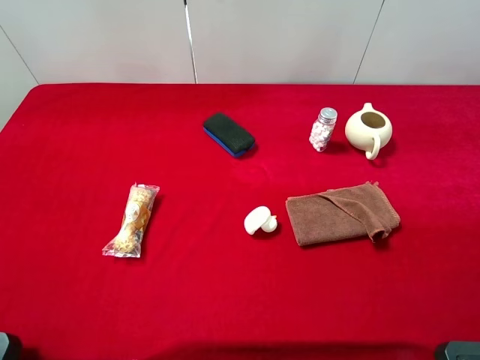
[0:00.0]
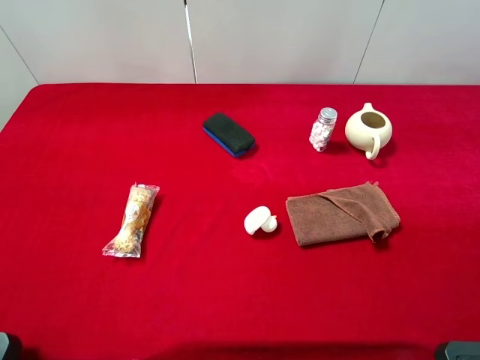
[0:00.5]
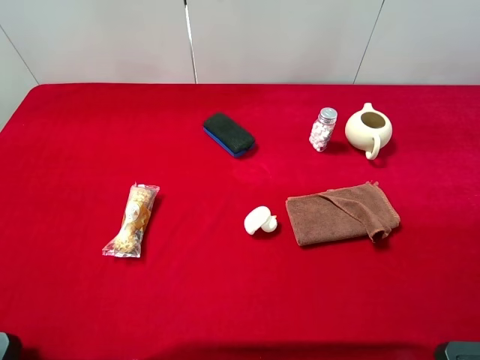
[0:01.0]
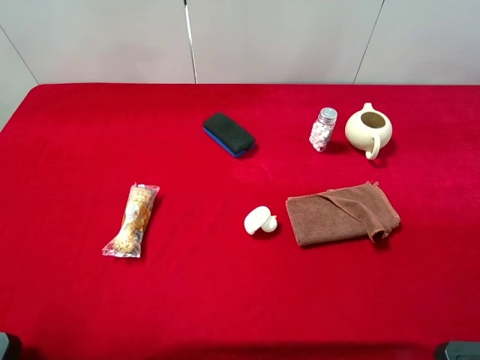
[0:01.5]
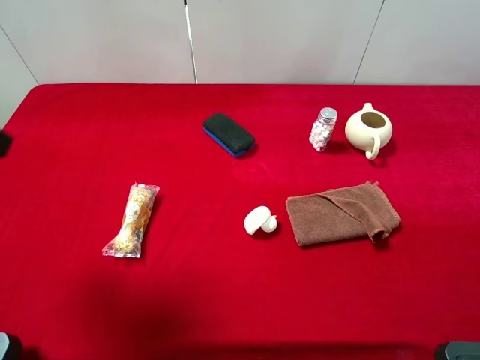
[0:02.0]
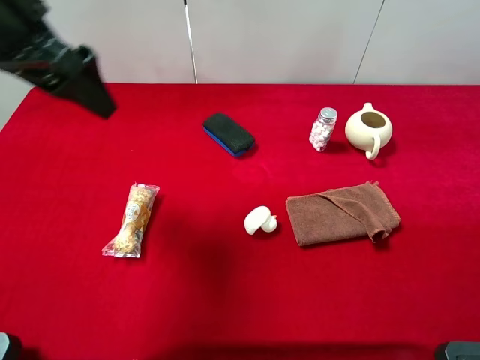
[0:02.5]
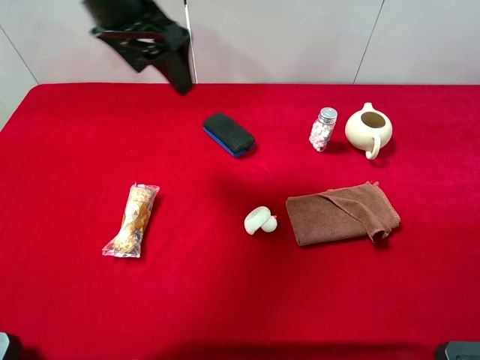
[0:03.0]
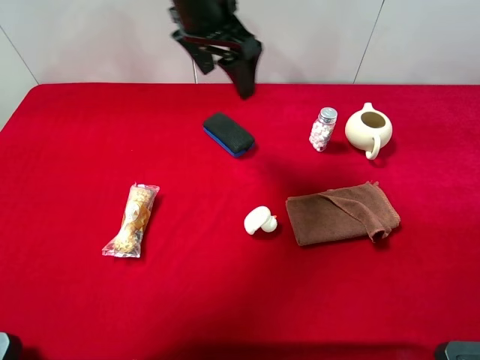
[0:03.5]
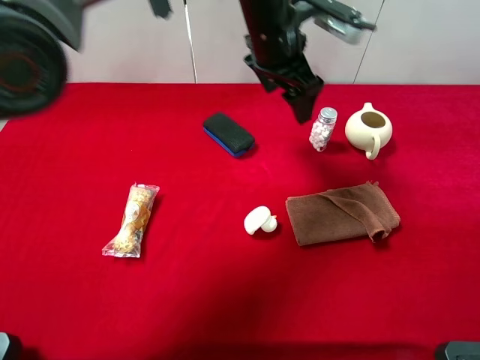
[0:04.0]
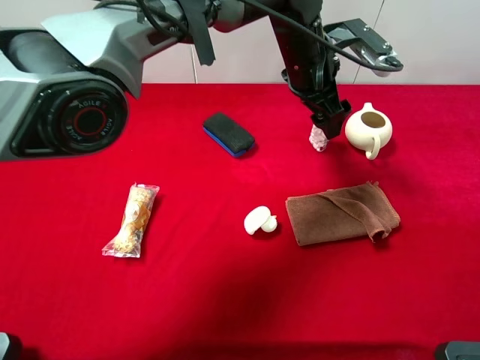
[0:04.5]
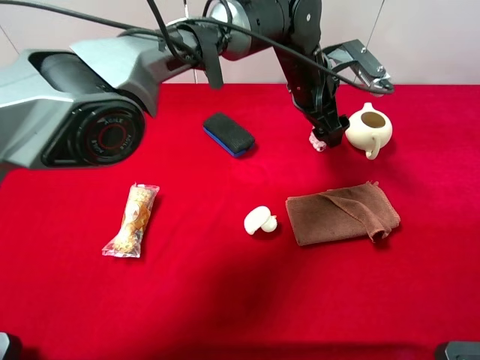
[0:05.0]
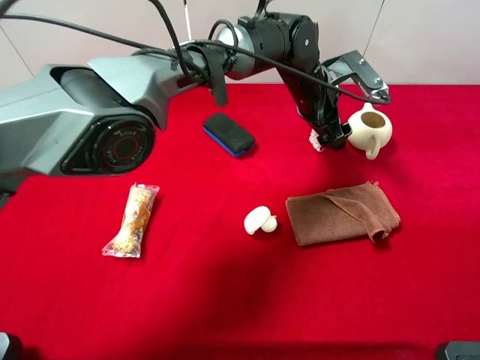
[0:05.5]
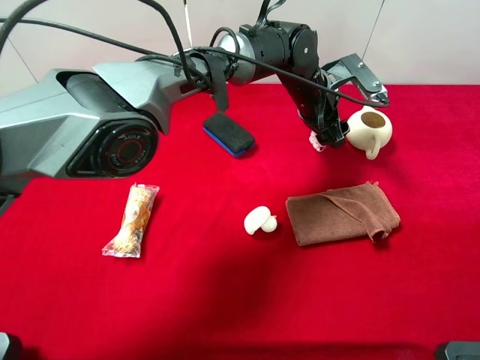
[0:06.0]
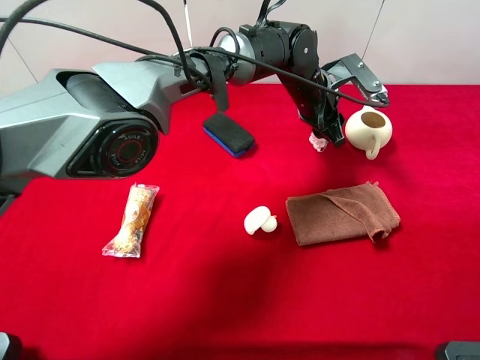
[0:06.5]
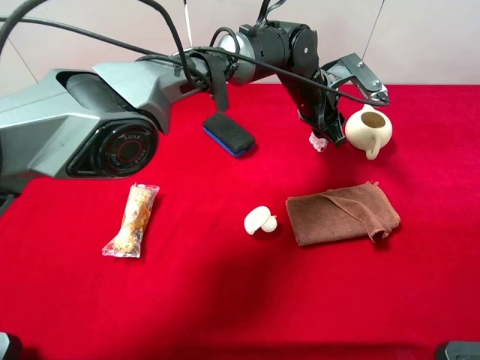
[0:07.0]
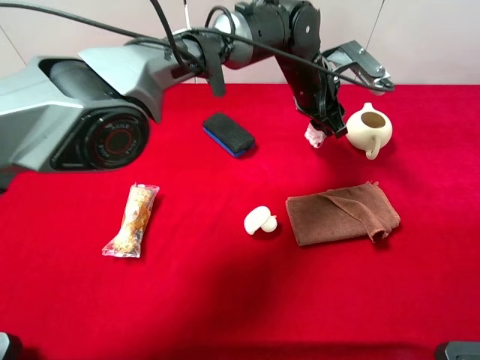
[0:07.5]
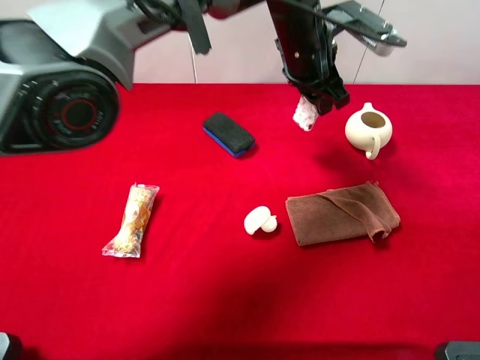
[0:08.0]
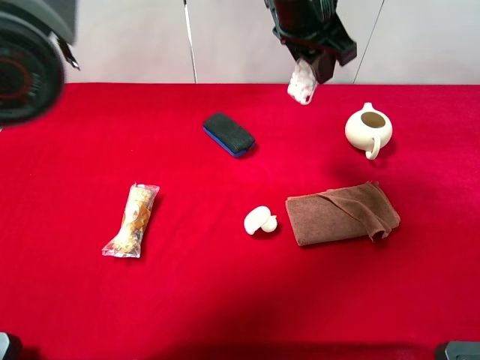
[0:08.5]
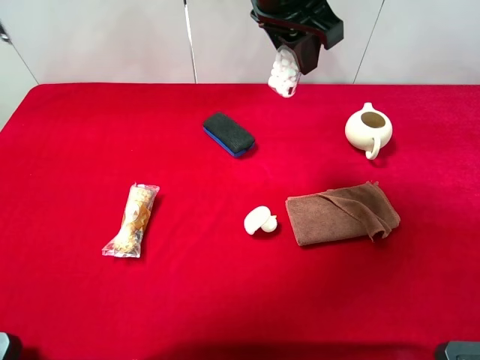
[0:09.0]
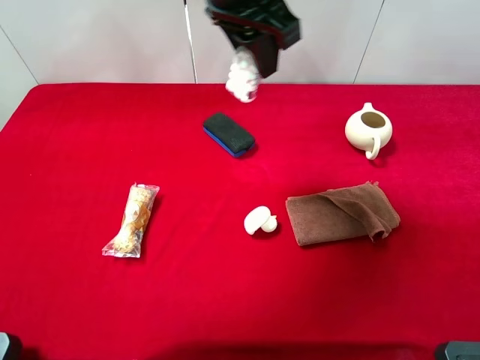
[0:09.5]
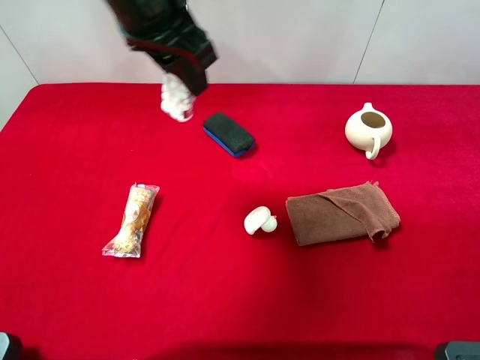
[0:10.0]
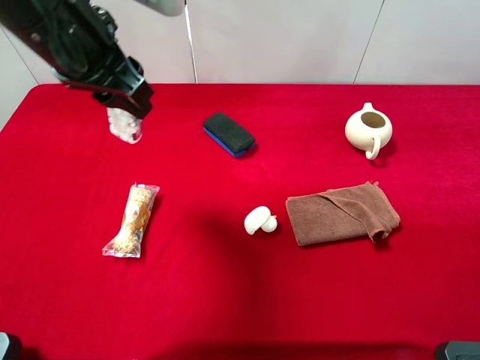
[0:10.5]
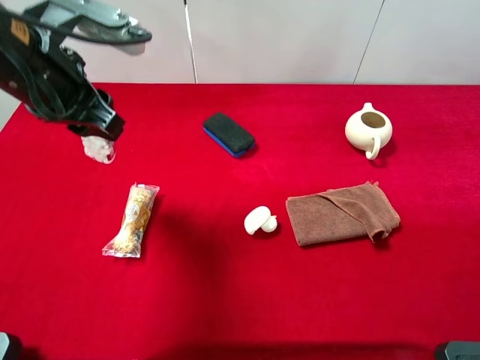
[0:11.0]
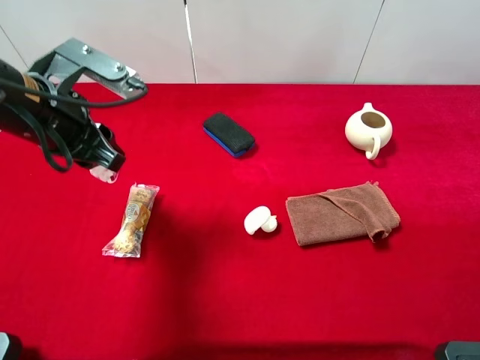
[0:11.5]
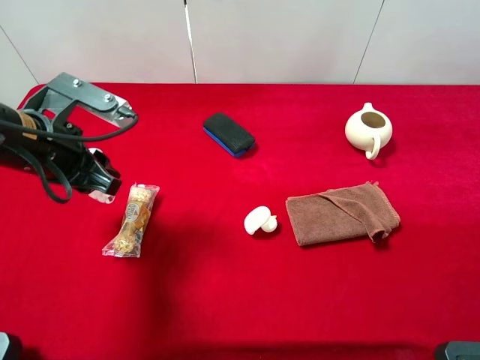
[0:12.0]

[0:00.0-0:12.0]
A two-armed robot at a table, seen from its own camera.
Task of the whole recording: the gripper move the object.
Step, 0.0 to 7.0 s: Grasp the mint candy with the left gripper.
2.0 to 4.0 s: The left gripper heads to the right and forward, covering about 40 cm.
4.0 to 6.0 s: The left gripper heads downward and to the right, covering about 15 cm.
6.0 to 8.0 s: The left gripper heads upward, covering some 5 cm, and closes its fingers.
8.0 to 10.0 s: The left gripper goes some 20 cm to the left, upward and backward.
10.0 to 12.0 s: The left gripper moves to the left, downward and backward, approximately 20 cm.

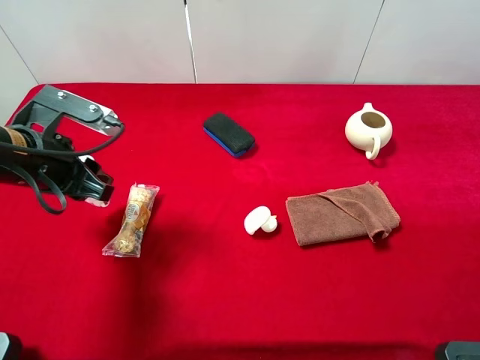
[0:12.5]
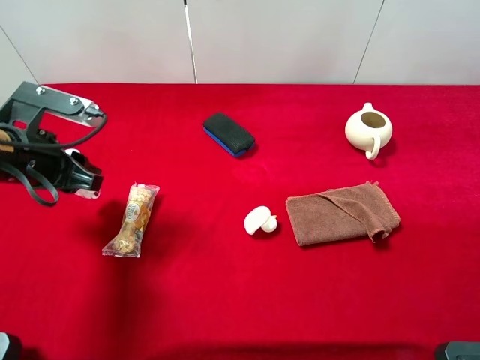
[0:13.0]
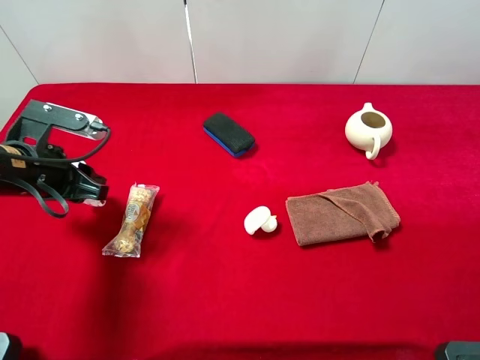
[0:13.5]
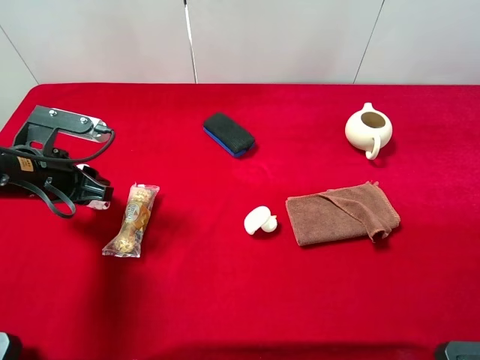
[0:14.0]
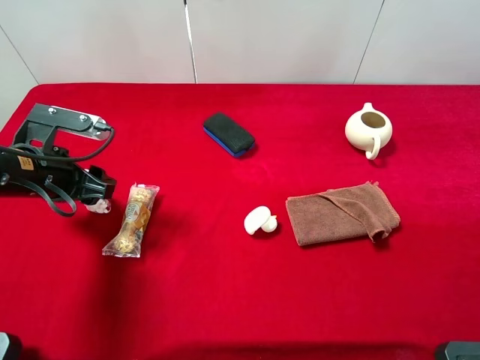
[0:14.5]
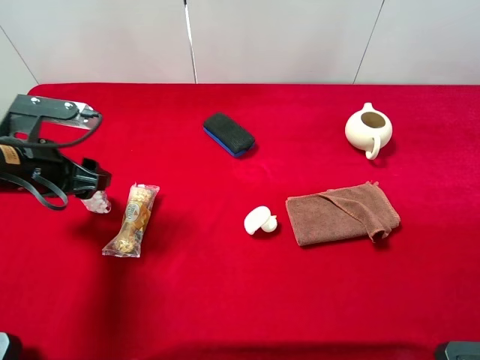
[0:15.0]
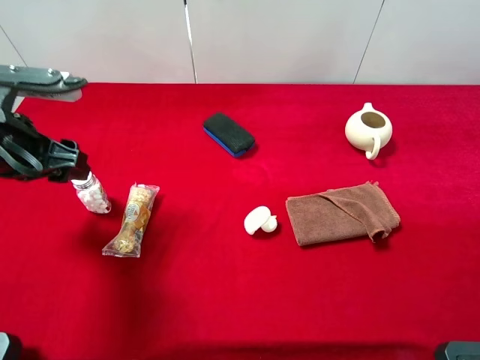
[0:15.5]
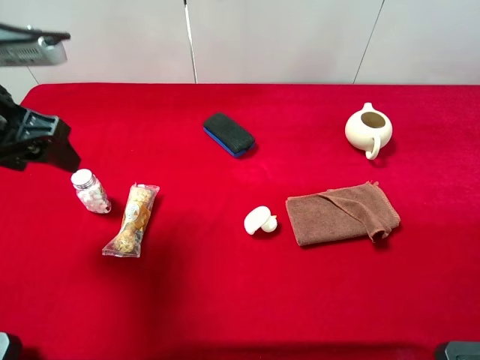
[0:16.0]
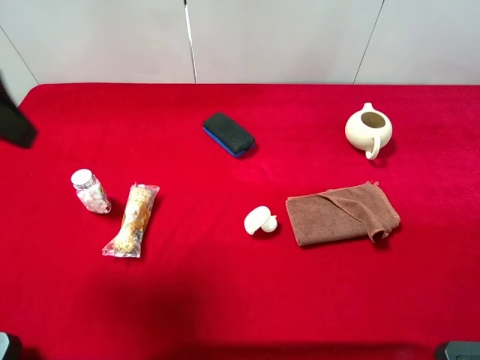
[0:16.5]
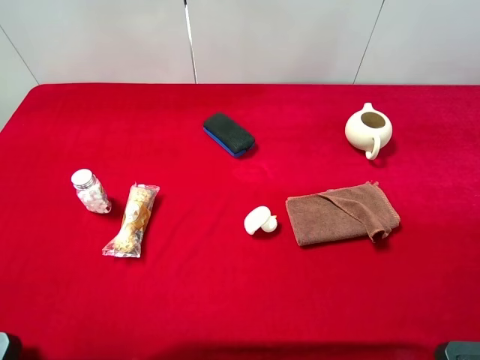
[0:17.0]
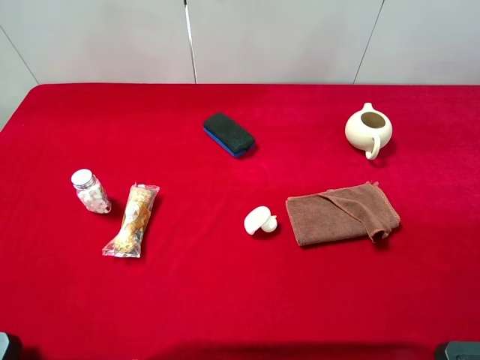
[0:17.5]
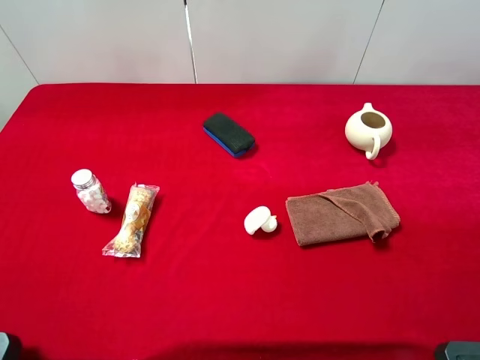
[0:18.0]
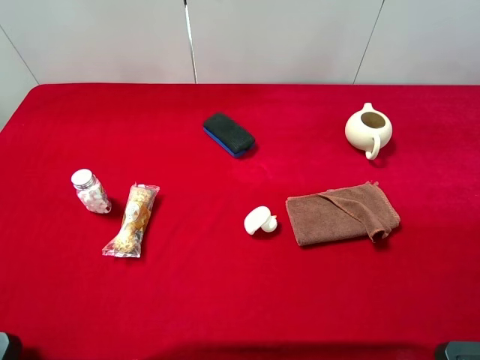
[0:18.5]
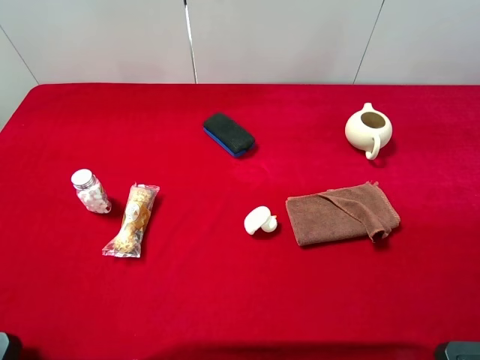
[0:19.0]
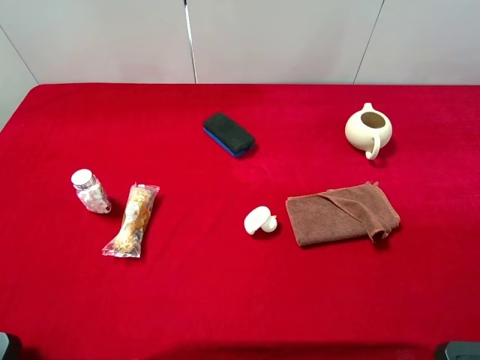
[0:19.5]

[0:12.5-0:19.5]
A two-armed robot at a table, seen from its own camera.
Task of the whole recording: the gripper move the object.
Step, 12.5 to 15.5 s: Place the mint candy on the table with the left gripper.
12.5 to 14.5 s: The left gripper moves about 5 cm, and opens.
14.5 to 16.0 s: The left gripper travels upward by roughly 10 cm.
16.0 to 17.5 s: The left gripper heads backward and upward, covering about 25 cm, and opens.

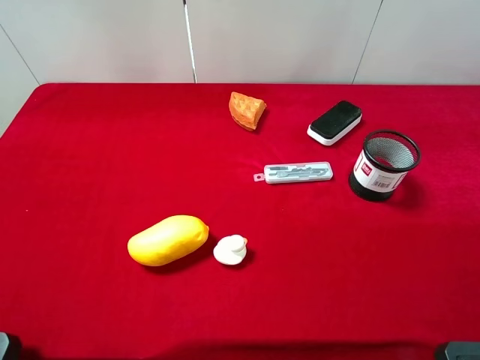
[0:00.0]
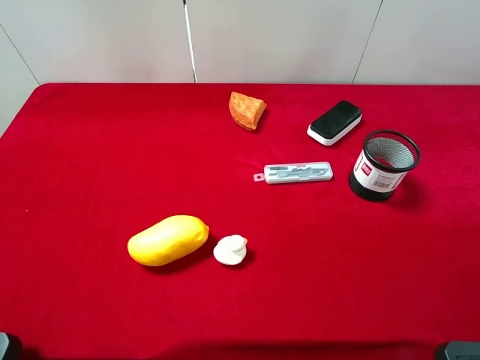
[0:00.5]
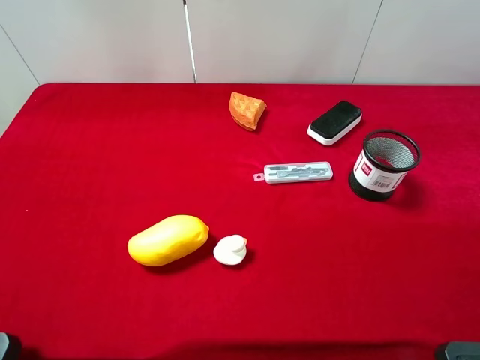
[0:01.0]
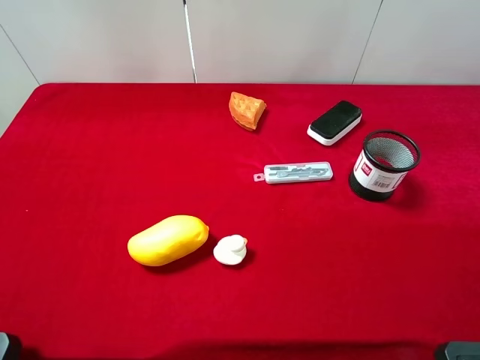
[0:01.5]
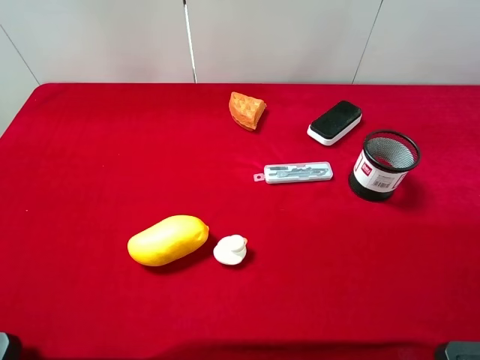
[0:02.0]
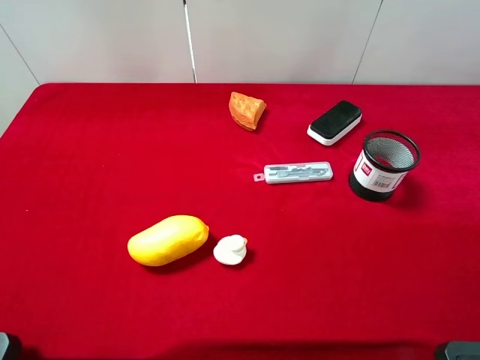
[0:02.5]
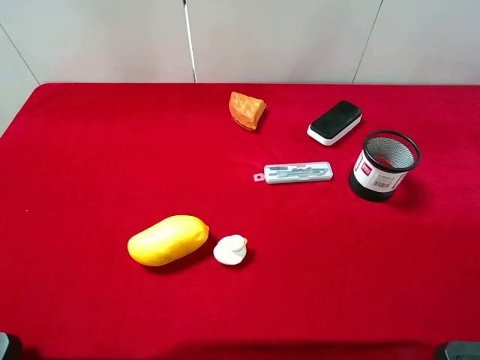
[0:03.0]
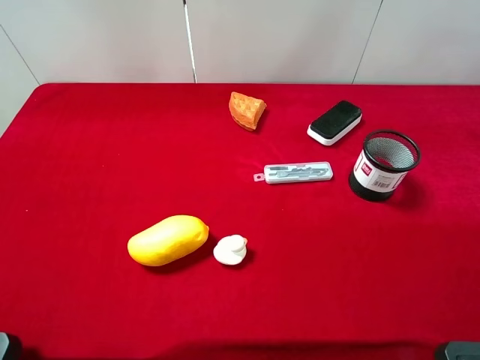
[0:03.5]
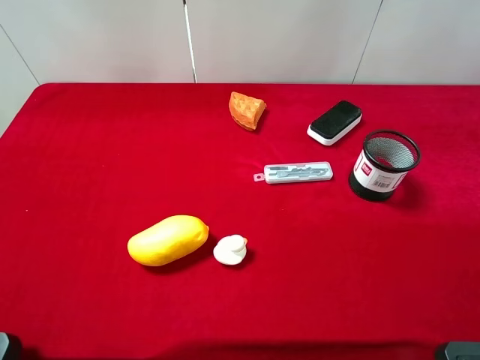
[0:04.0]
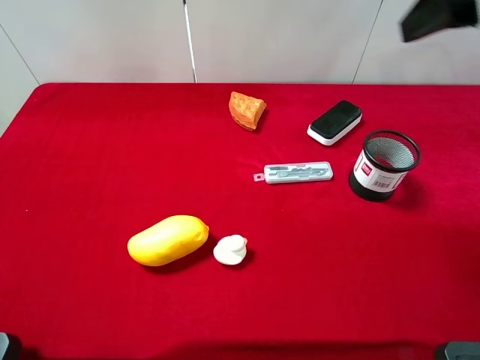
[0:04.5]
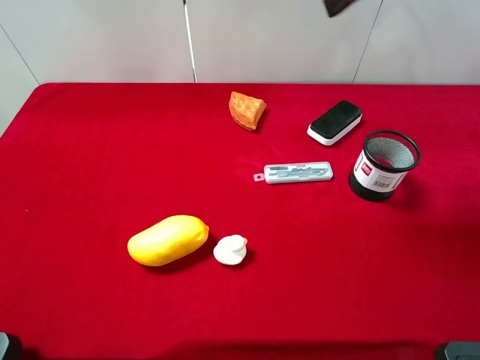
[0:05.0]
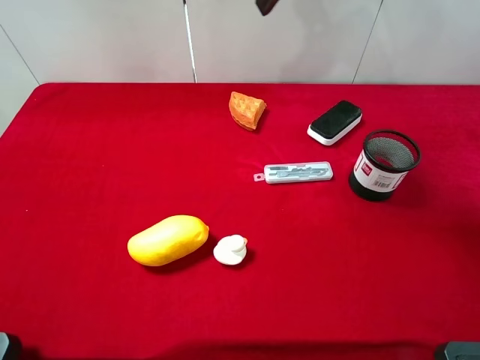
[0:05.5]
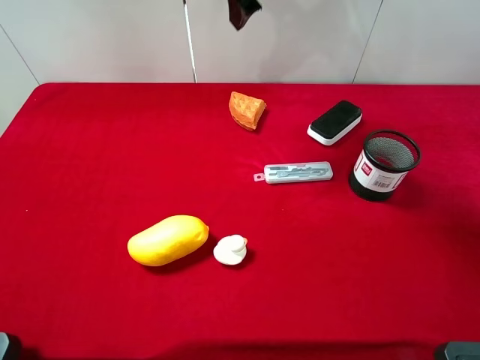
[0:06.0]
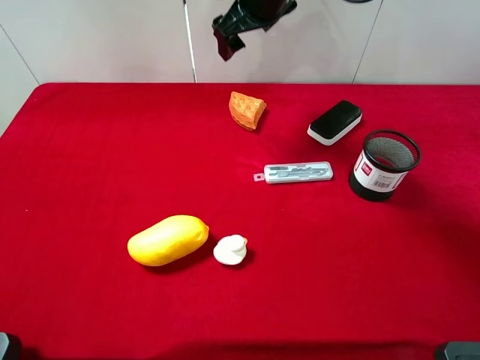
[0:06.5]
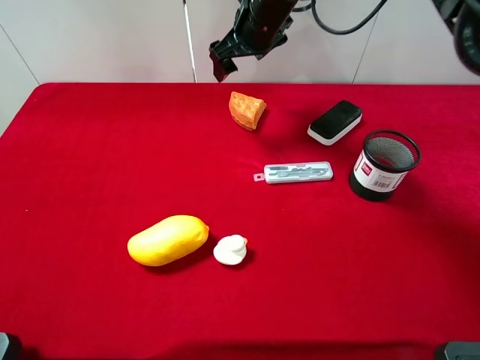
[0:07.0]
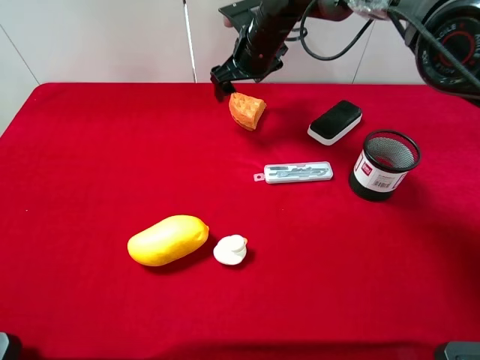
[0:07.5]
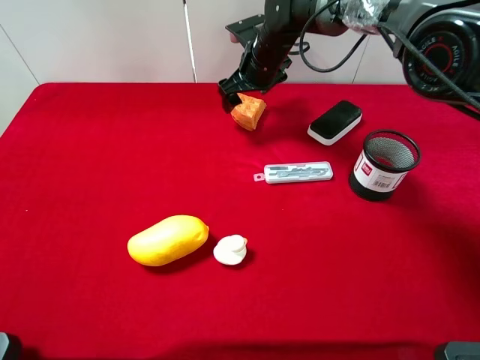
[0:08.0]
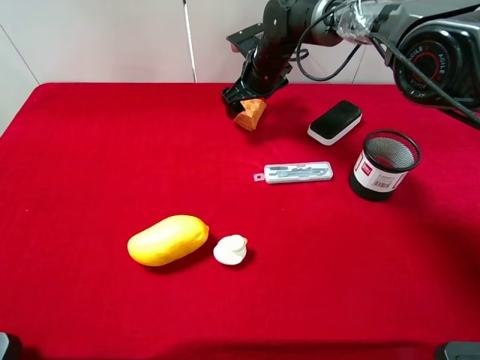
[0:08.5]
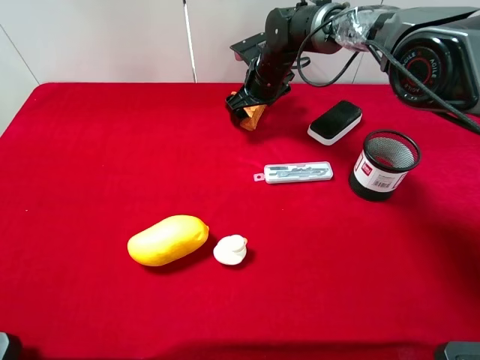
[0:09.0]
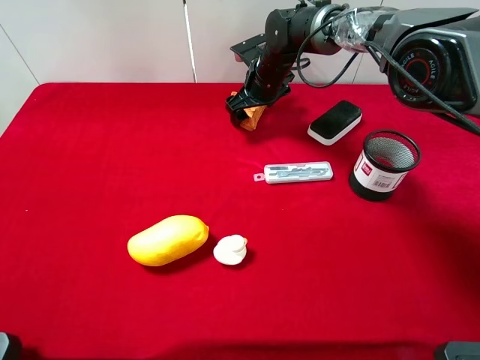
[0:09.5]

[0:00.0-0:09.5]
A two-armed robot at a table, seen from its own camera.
Task of the whole recording: the gripper move the object.
0.0 to 2.0 s: Both grippers stay about where they are.
4.0 to 5.5 s: The right gripper moves forward and to the left, some 30 cm.
5.5 to 7.5 s: The right gripper travels downward and forward by roughly 25 cm.
7.5 to 9.5 s: The right gripper heads downward, covering approximately 5 cm.
